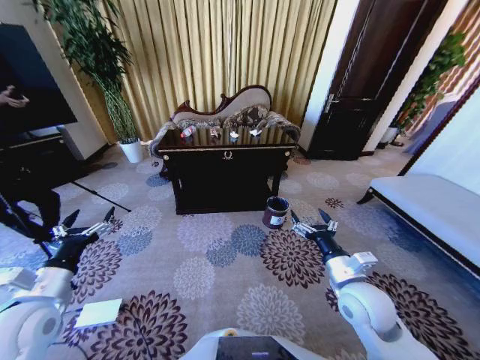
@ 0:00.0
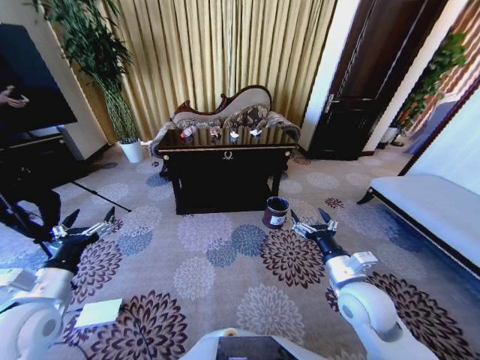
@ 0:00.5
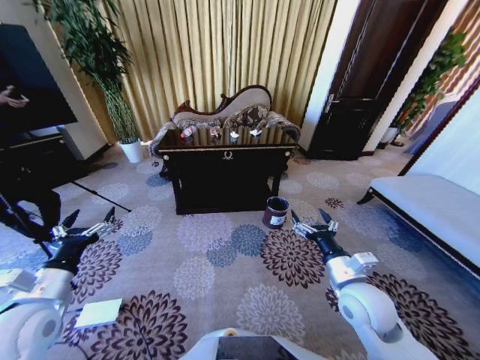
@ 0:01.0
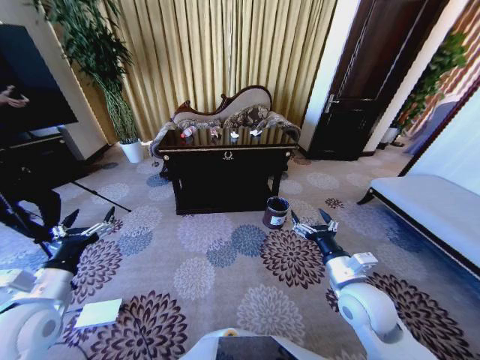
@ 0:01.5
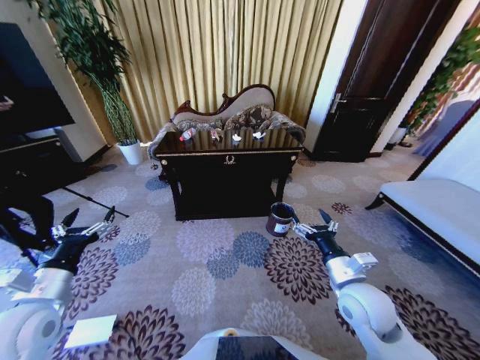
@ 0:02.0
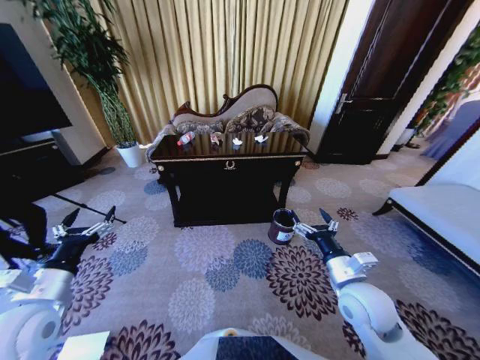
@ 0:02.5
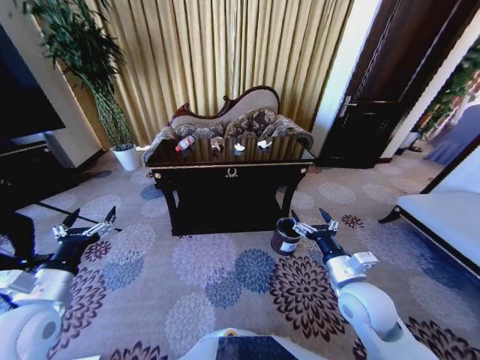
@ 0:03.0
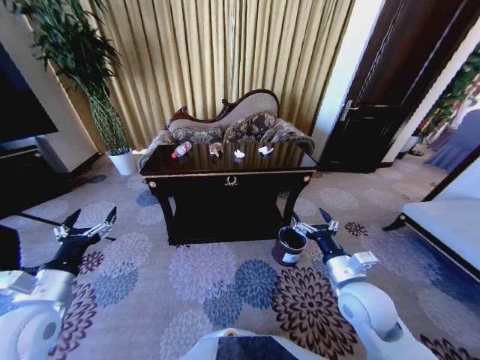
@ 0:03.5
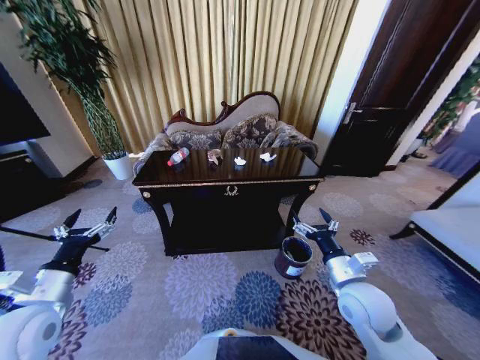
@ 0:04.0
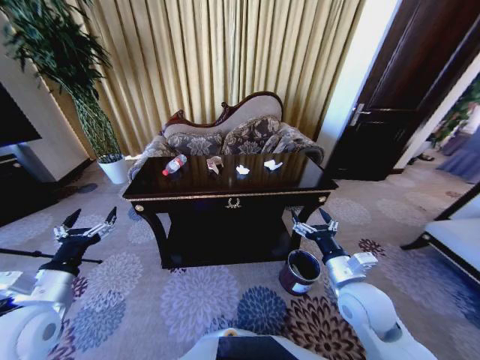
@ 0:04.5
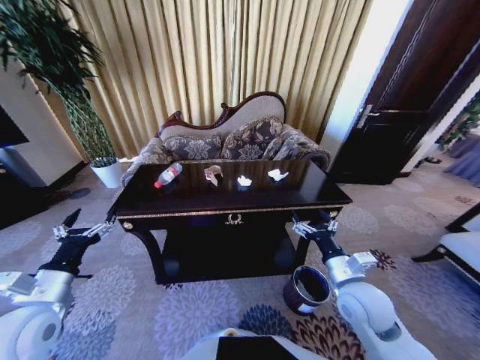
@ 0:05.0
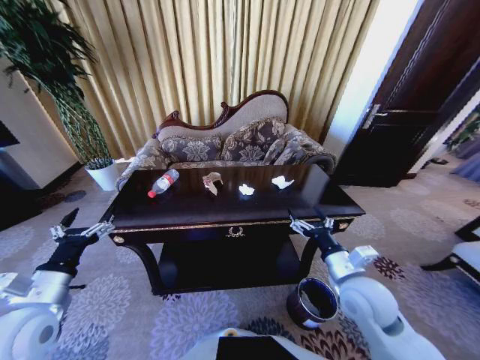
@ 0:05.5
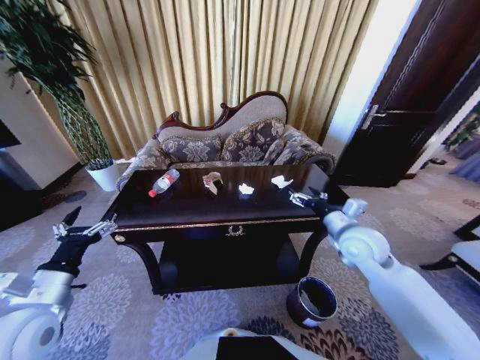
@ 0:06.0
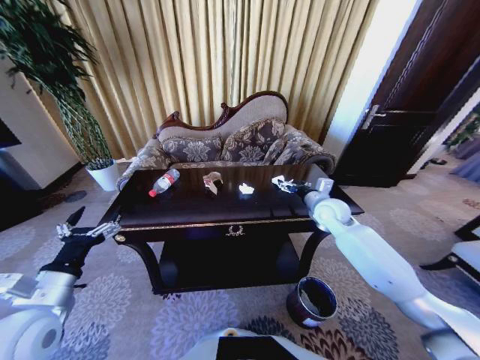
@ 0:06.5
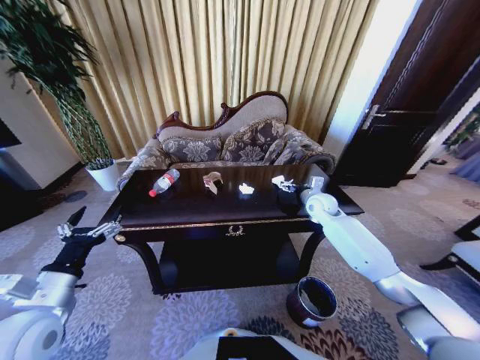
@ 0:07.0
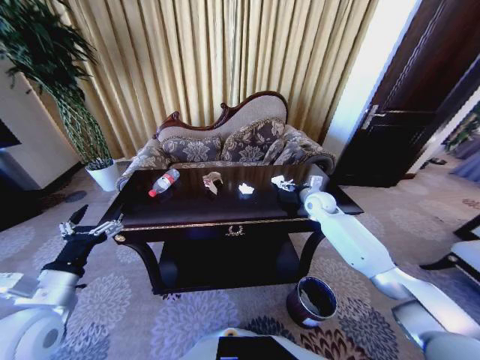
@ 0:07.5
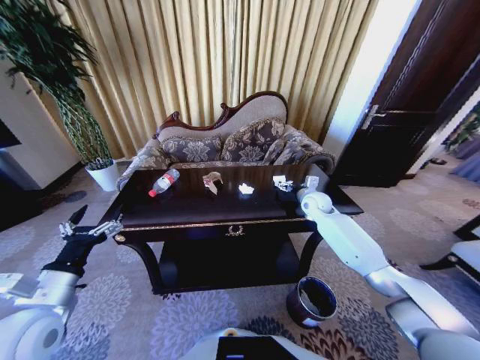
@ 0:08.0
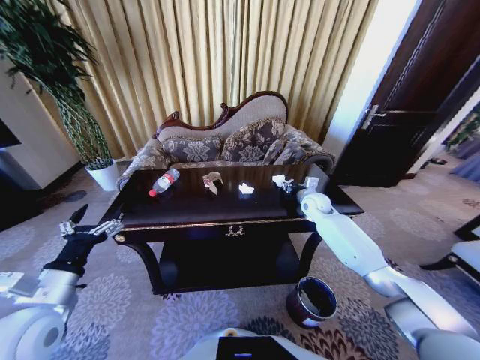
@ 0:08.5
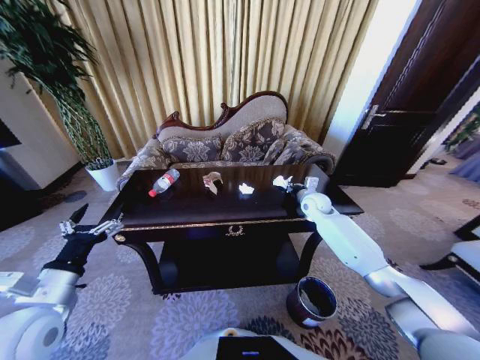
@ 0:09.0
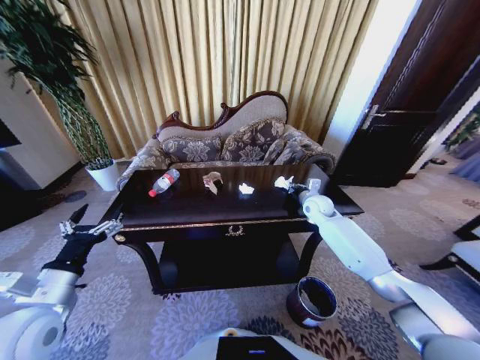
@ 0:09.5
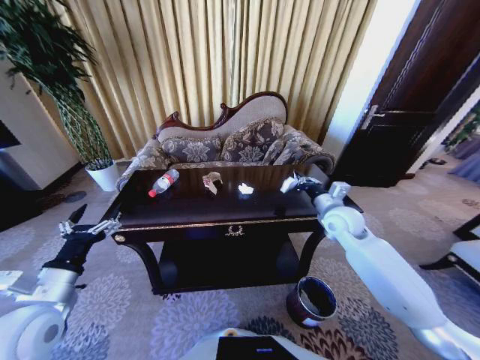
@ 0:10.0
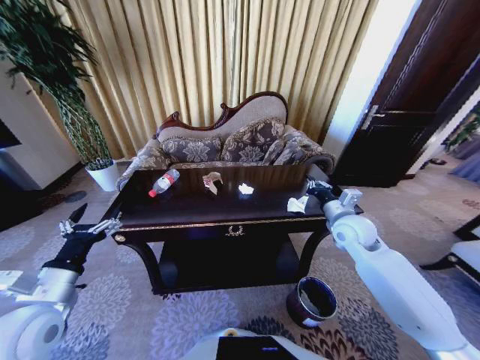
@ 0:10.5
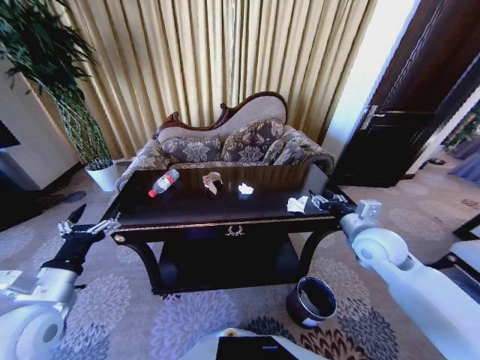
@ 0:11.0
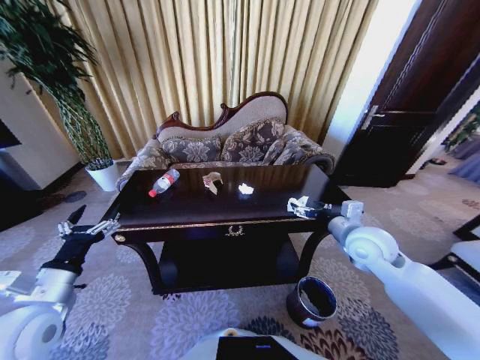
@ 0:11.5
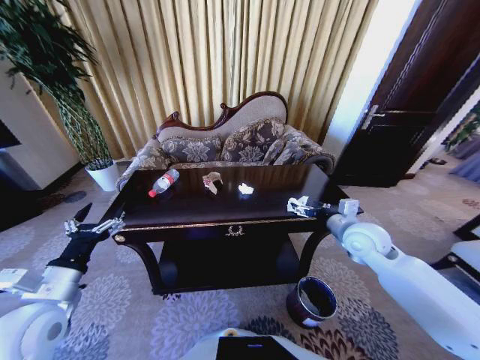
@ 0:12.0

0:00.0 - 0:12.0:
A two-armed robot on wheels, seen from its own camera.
Task of the whole recording: Move to the front of the table and place the trash on the table into the trash bin.
0:04.0 - 0:06.0: The right gripper moves forward and upward, roughly 15 cm.
0:06.0 - 0:08.0: The right gripper shifts some 20 cm forward.
0:08.0 - 0:10.0: The right gripper moves backward, approximately 10 cm, and closes.
0:10.0 - 0:12.0: The right gripper heads backward, covering about 5 cm, and opens.

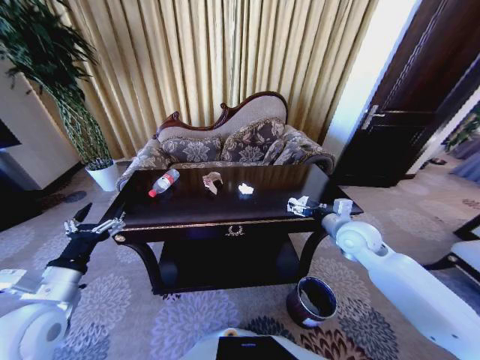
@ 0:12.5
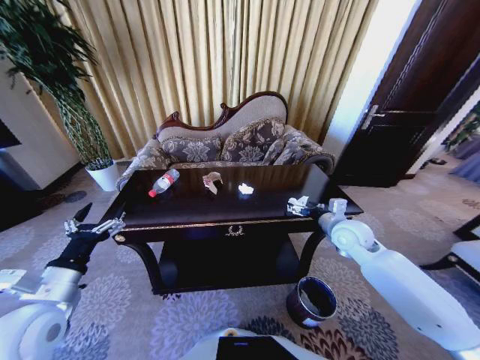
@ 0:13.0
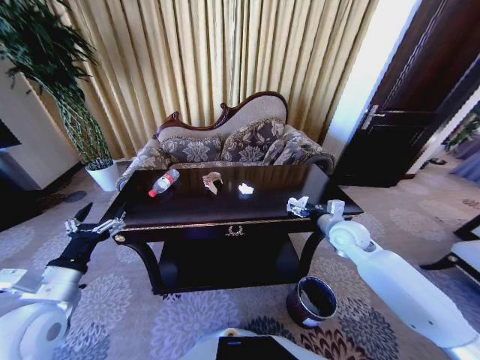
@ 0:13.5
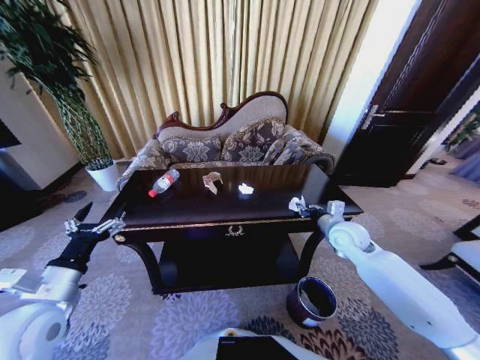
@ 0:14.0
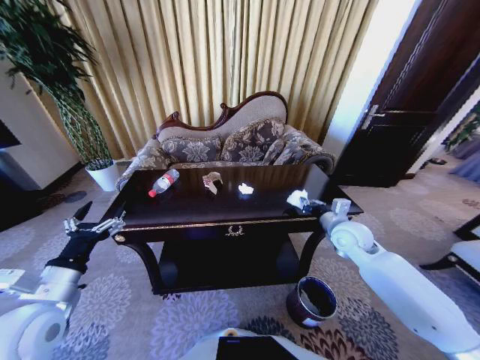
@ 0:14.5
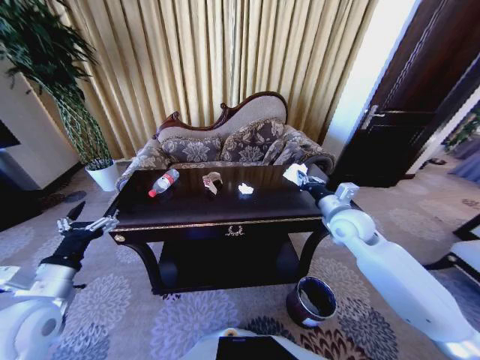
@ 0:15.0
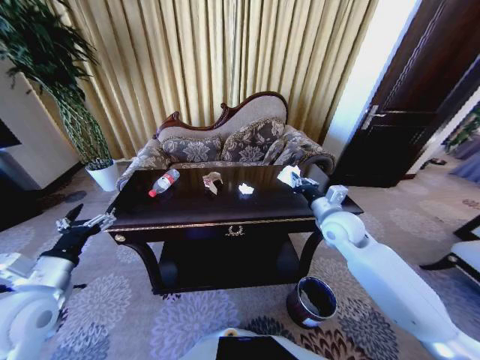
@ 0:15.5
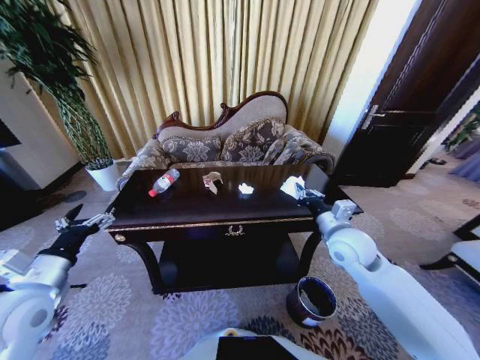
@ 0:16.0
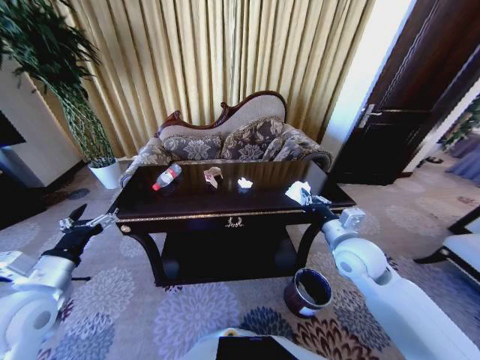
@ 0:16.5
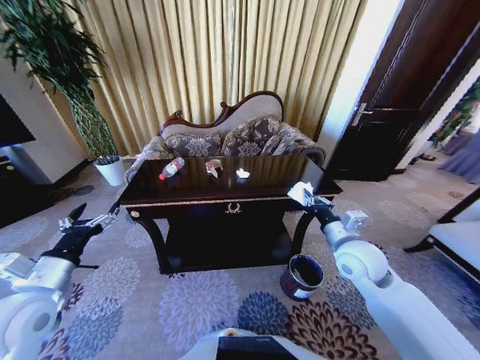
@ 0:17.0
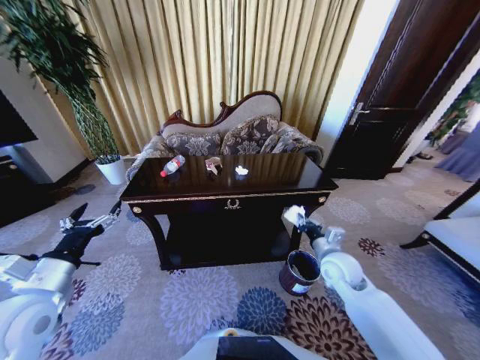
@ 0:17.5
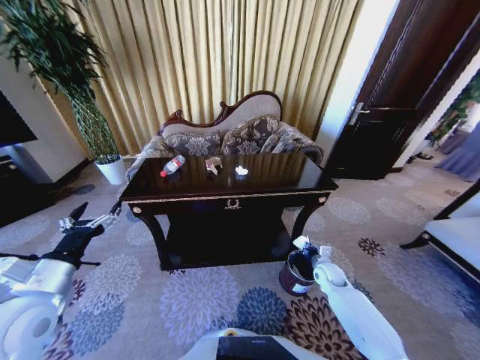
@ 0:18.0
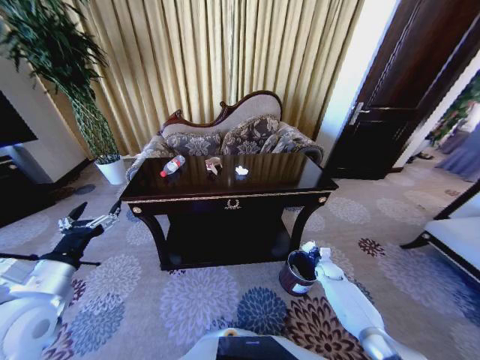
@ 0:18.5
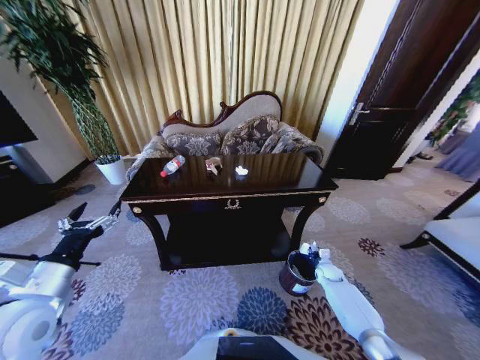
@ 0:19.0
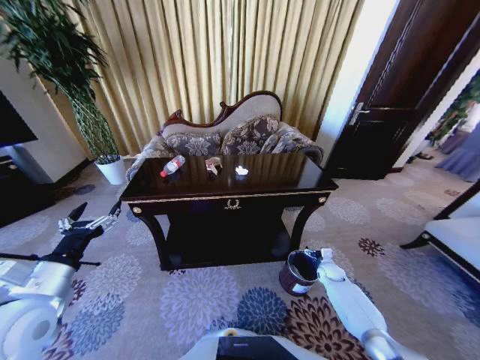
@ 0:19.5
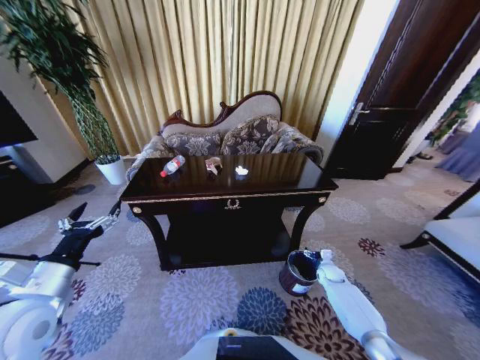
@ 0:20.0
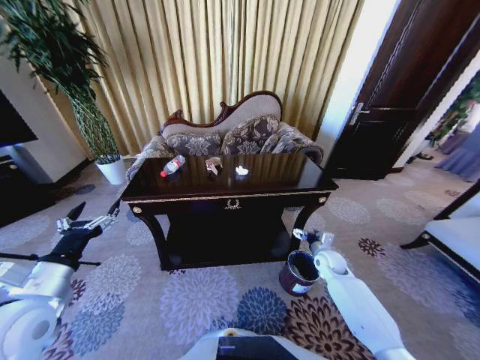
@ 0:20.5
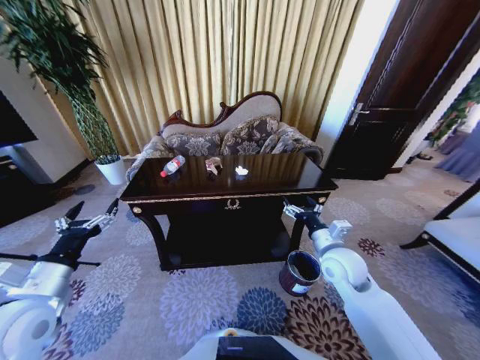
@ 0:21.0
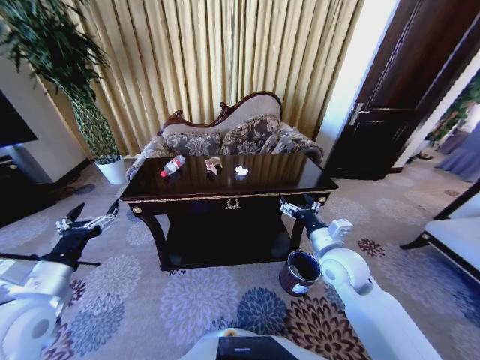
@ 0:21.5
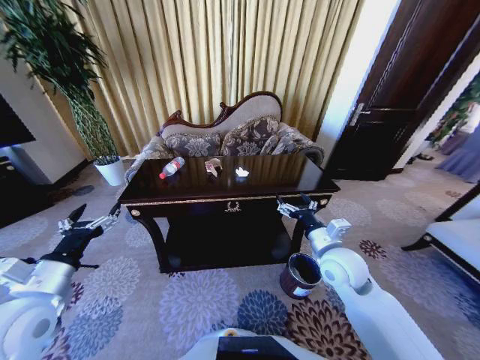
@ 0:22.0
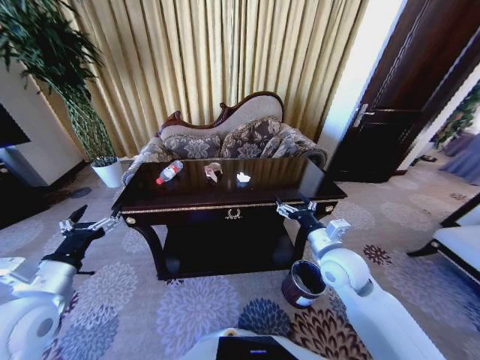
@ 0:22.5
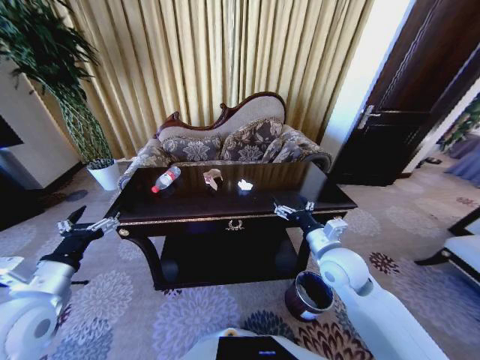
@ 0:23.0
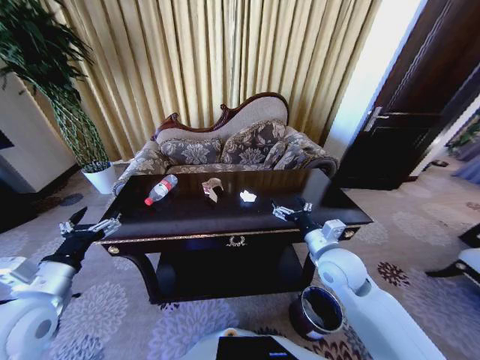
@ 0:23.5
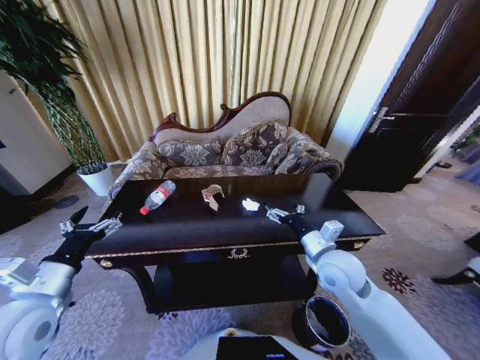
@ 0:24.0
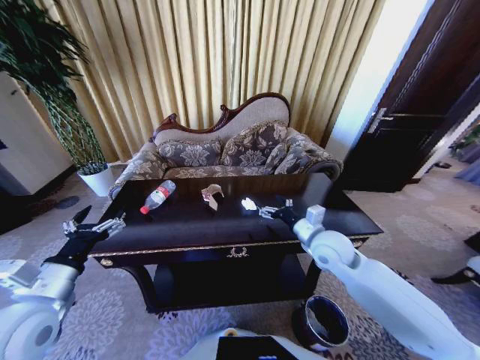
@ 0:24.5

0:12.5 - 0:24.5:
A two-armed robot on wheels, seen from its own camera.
Task of the whole recording: Move to the front of the table and place the trash on the table into the trash bin.
0:12.5 - 0:14.5: The right gripper closes.
0:14.5 - 0:16.5: The right gripper moves backward, some 10 cm.
0:16.5 - 0:18.5: The right gripper goes approximately 35 cm downward.
0:18.5 - 0:20.5: The right gripper shifts approximately 15 cm upward and to the left, and opens up.
0:20.5 - 0:22.5: The right gripper heads upward, to the left and backward, covering about 25 cm.

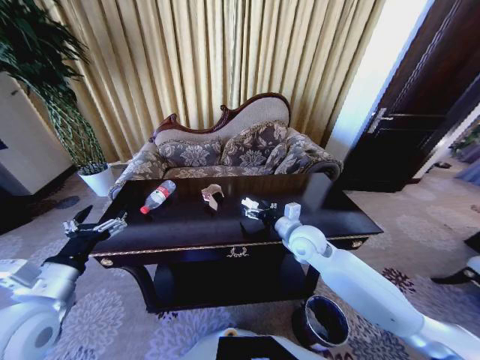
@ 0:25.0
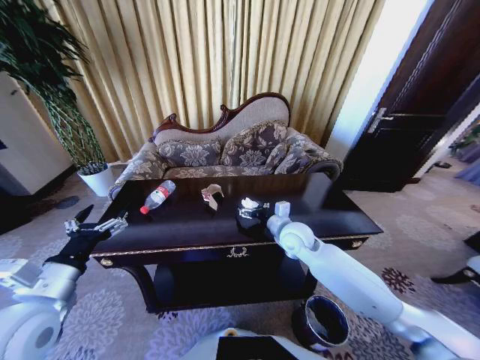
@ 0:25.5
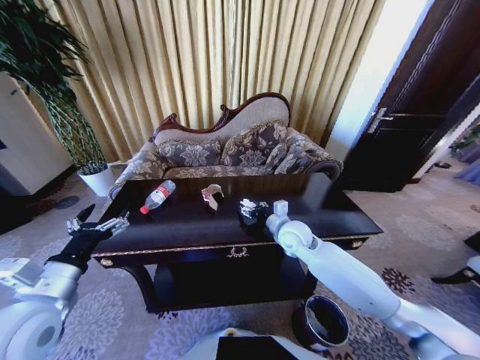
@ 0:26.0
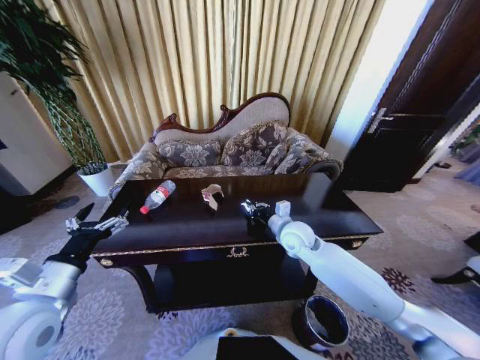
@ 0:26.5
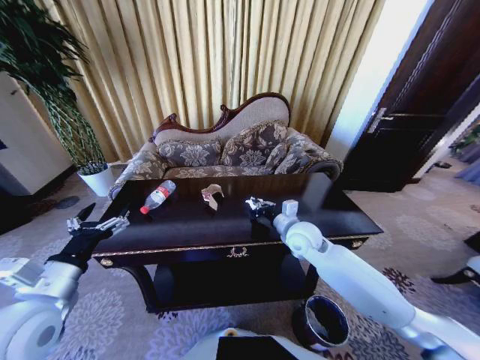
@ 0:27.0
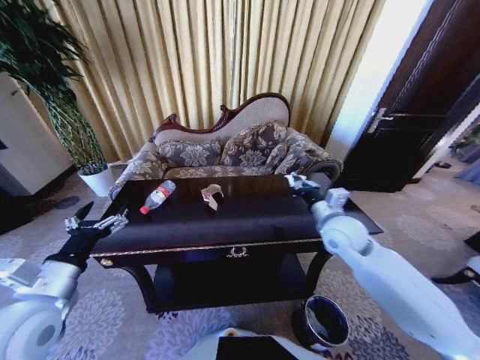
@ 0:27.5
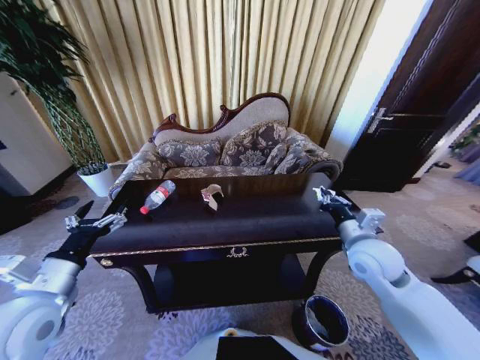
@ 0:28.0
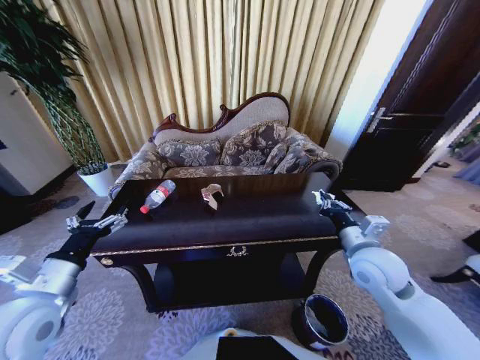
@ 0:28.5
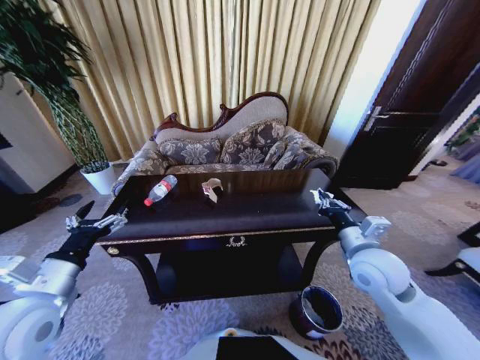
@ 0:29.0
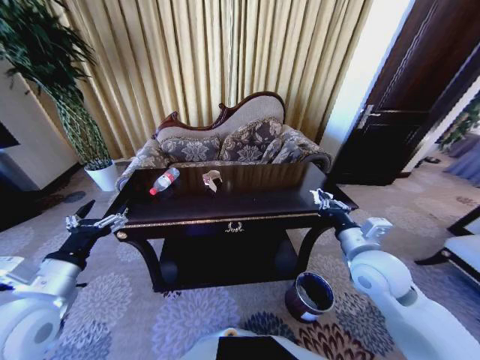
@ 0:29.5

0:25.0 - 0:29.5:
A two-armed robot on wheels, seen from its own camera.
Task of the whole recording: Move to the front of the table and place the trash on the table into the trash bin.
0:25.0 - 0:27.0: The right gripper closes its fingers.
0:27.0 - 0:29.5: The right gripper goes some 15 cm backward and to the right.
